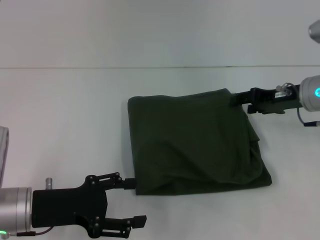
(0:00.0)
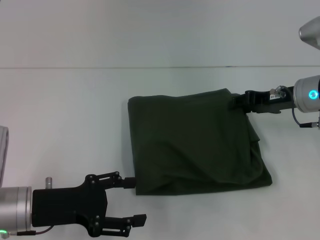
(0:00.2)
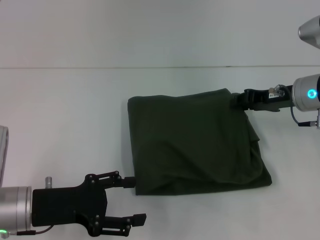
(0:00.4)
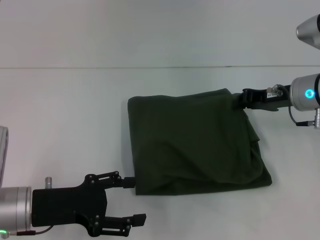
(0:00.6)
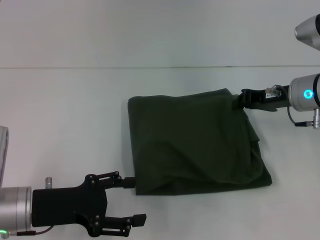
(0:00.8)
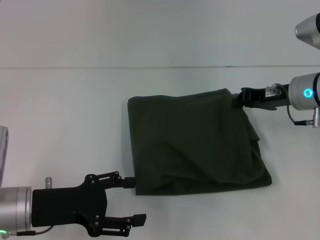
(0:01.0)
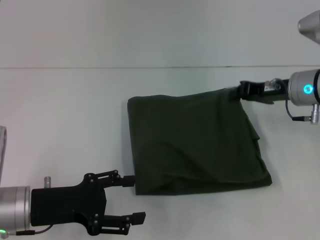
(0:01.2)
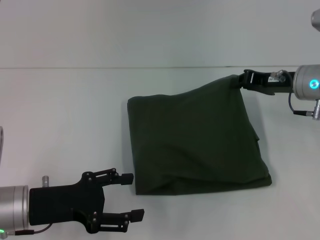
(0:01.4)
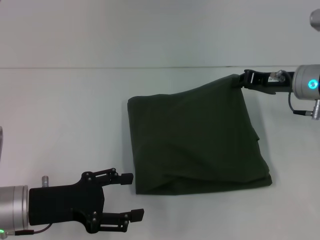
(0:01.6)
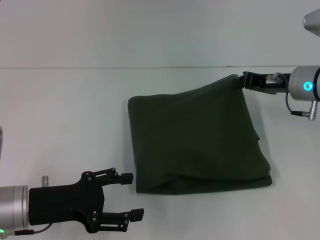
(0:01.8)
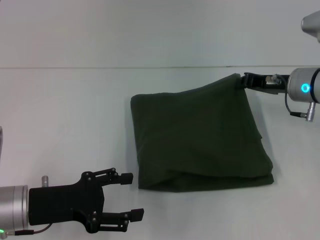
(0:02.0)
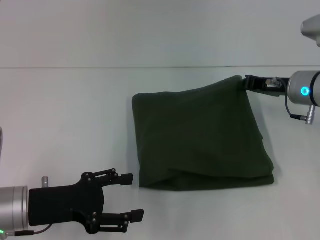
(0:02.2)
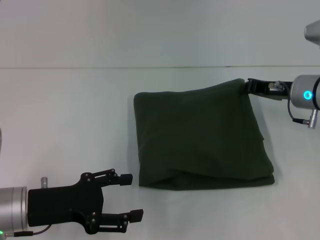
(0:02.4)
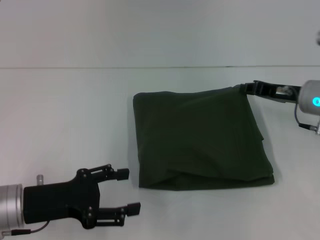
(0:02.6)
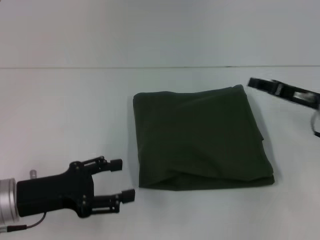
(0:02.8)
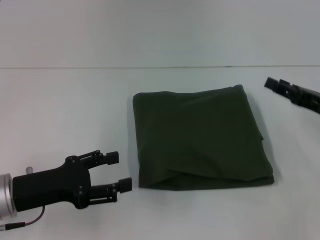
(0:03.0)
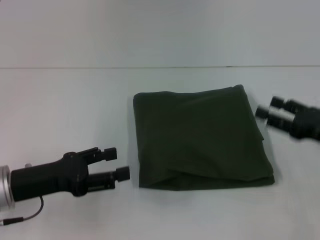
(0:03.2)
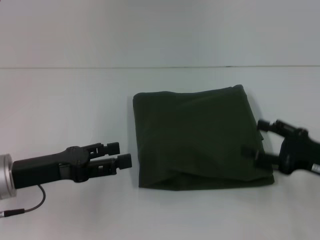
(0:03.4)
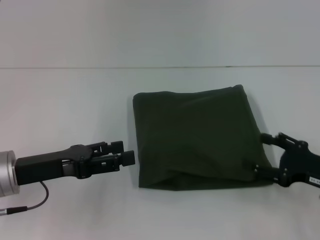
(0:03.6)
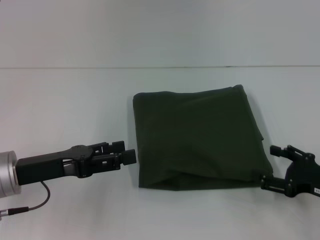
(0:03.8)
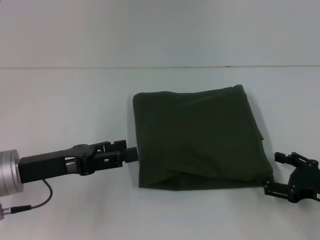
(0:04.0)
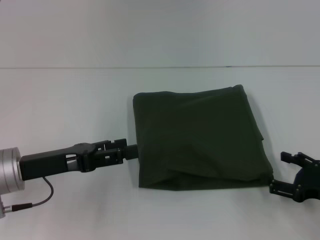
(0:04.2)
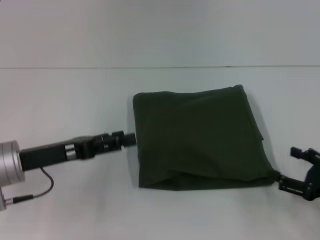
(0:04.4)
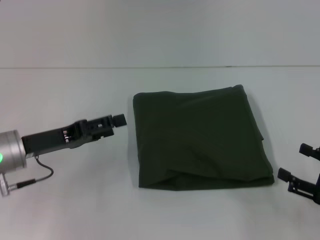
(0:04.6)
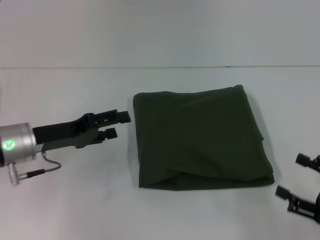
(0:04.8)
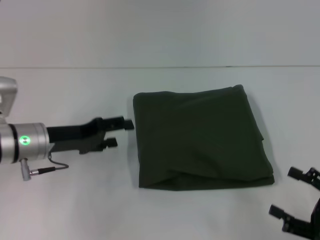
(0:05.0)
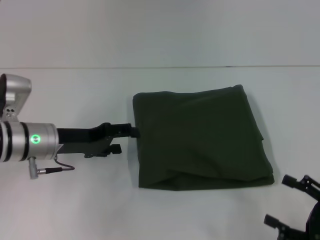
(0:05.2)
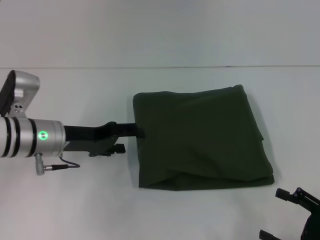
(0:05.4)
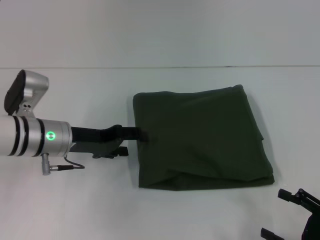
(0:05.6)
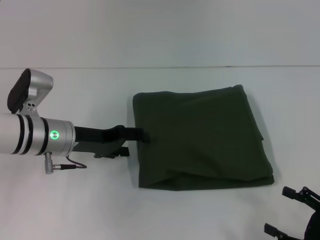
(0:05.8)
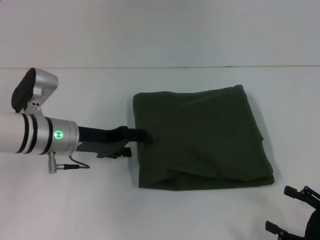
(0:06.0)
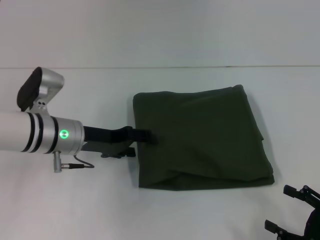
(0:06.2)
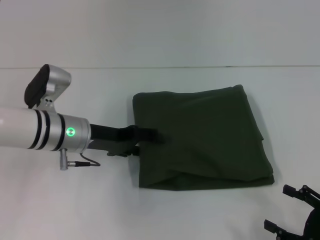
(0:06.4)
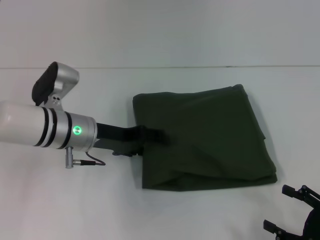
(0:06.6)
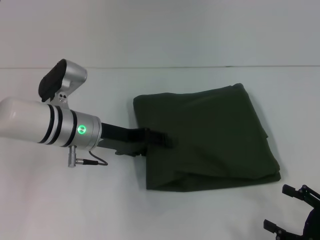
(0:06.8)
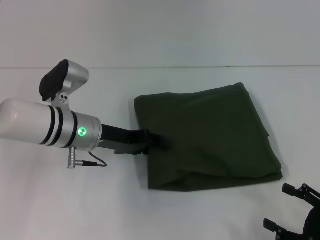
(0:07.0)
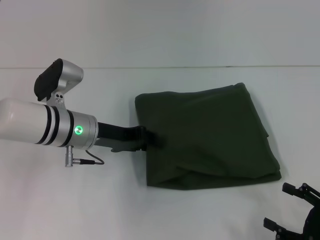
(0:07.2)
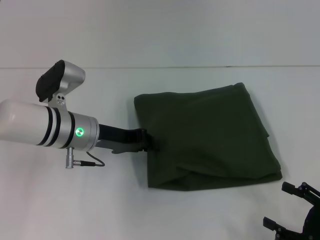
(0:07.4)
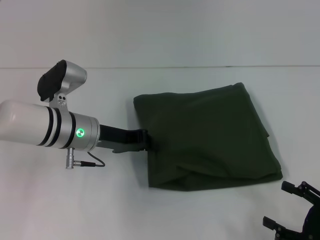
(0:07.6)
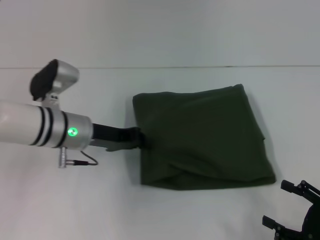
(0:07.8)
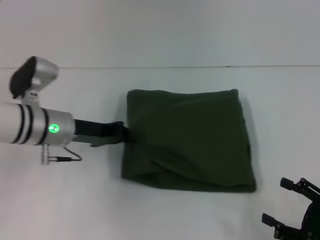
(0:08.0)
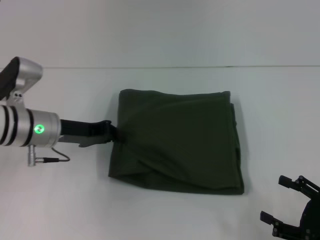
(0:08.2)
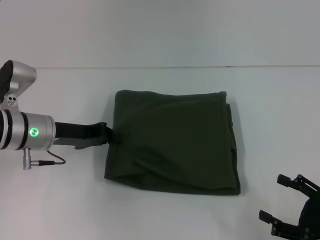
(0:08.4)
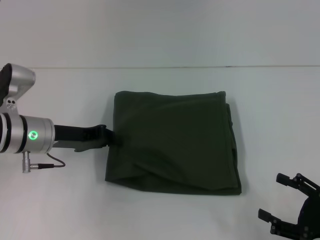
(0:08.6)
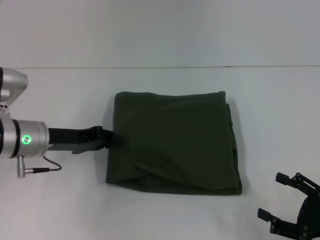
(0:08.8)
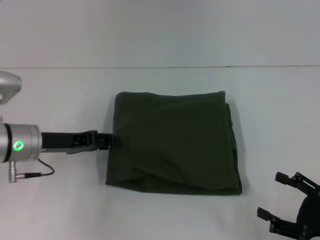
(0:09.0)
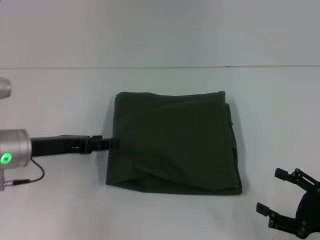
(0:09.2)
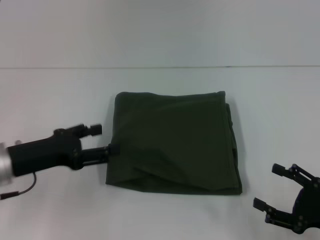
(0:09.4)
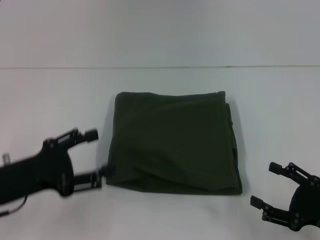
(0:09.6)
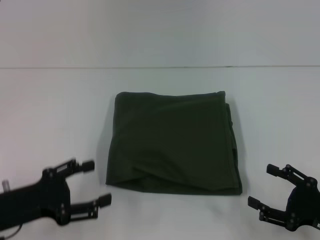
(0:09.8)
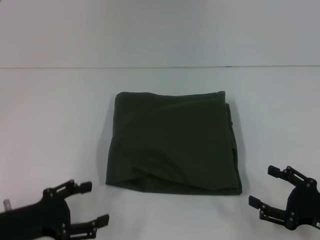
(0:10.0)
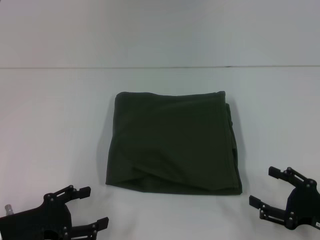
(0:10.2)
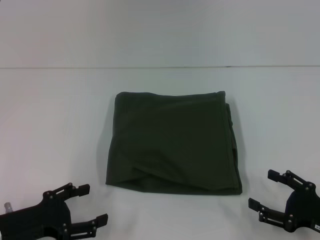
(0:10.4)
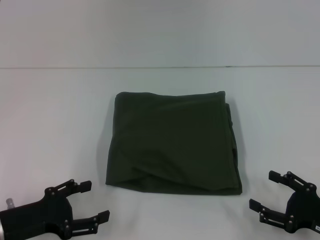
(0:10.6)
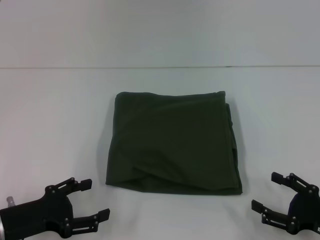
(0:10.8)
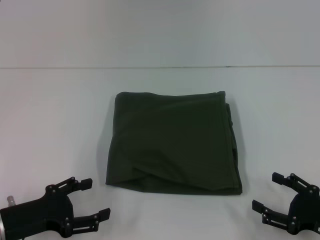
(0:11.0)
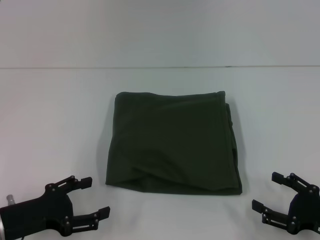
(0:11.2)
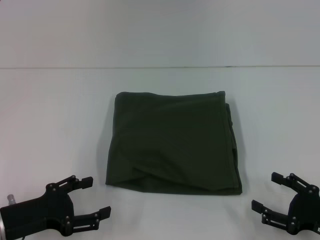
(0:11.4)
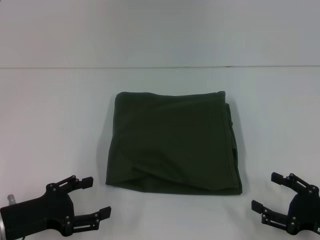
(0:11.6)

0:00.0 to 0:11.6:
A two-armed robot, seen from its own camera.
0:00.0 to 0:01.4: The right gripper closes its fingers.
0:01.4 to 0:02.8: The right gripper ends up some 5 cm from where it was.
0:02.8 to 0:04.4: The right gripper heads backward and downward, covering roughly 15 cm, and opens.
0:04.4 to 0:05.8: The left gripper is displaced forward by some 10 cm. Meanwhile the right gripper is displaced backward by roughly 5 cm.
0:05.8 to 0:07.2: The grippers make only small movements.
0:07.2 to 0:08.8: The left gripper is displaced to the left by about 5 cm, and closes its fingers.
0:08.8 to 0:10.2: The left gripper is displaced backward by roughly 15 cm, and opens its fingers.
0:10.2 to 0:11.6: The two grippers keep their place.

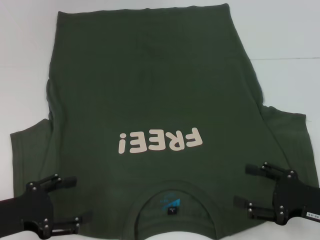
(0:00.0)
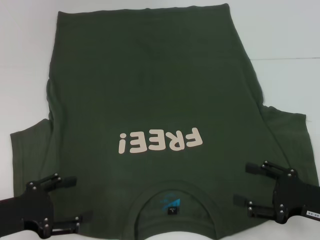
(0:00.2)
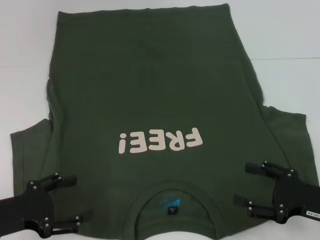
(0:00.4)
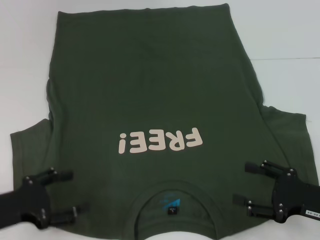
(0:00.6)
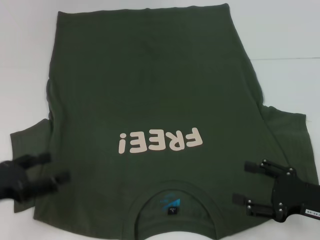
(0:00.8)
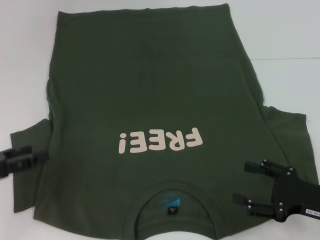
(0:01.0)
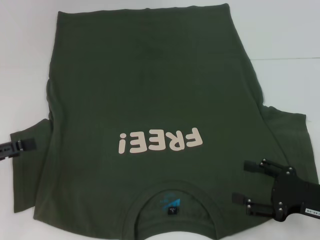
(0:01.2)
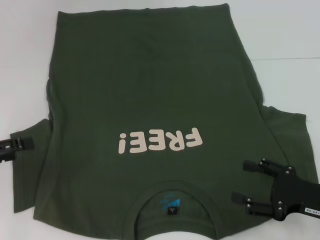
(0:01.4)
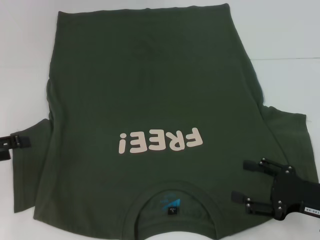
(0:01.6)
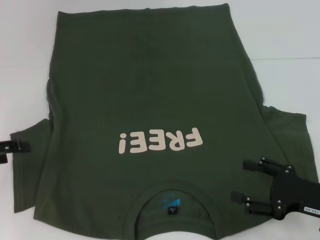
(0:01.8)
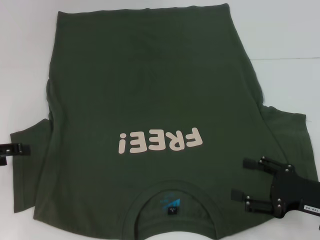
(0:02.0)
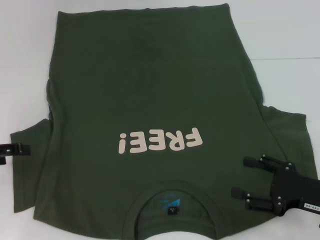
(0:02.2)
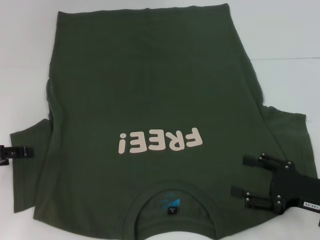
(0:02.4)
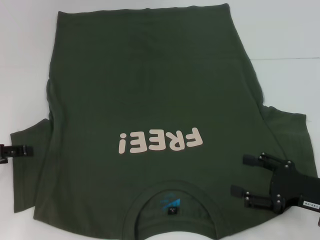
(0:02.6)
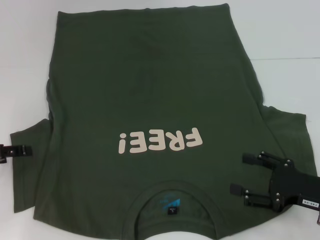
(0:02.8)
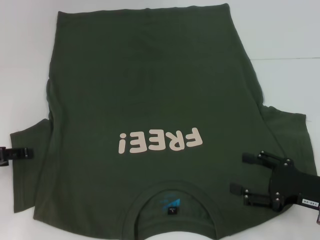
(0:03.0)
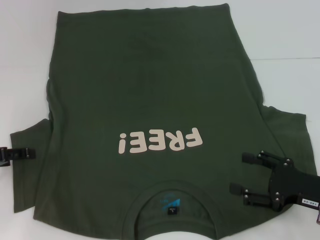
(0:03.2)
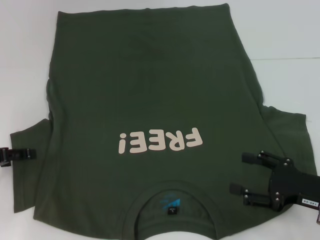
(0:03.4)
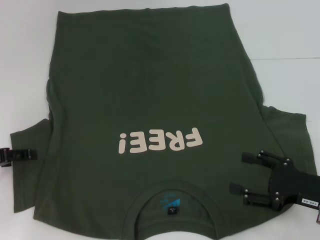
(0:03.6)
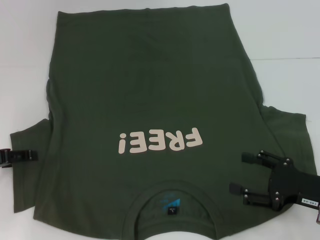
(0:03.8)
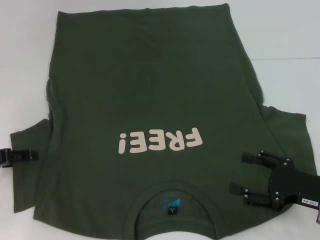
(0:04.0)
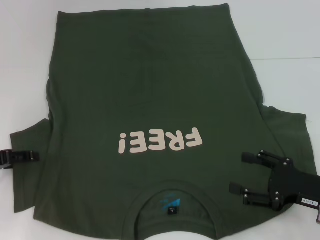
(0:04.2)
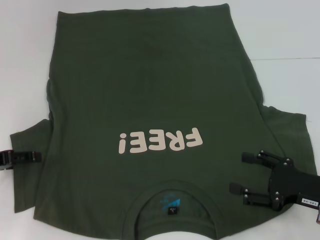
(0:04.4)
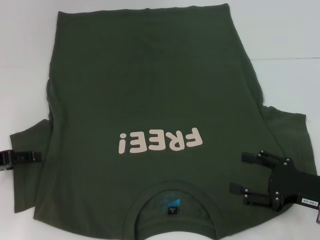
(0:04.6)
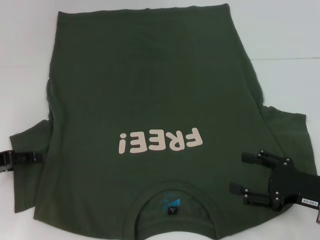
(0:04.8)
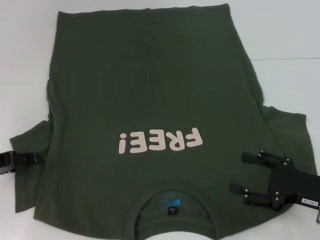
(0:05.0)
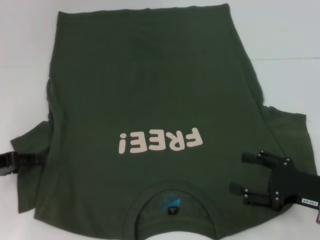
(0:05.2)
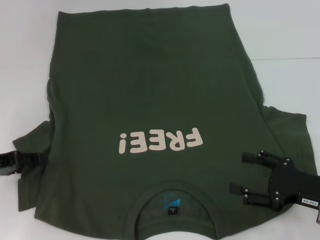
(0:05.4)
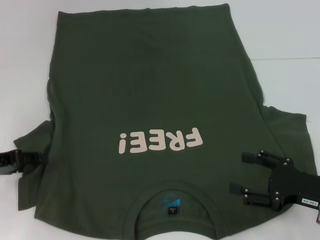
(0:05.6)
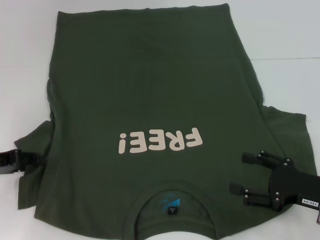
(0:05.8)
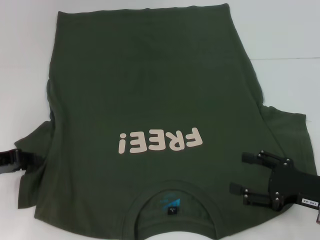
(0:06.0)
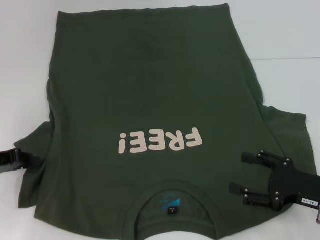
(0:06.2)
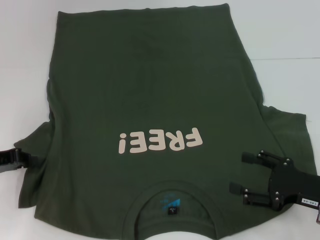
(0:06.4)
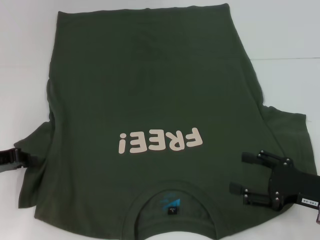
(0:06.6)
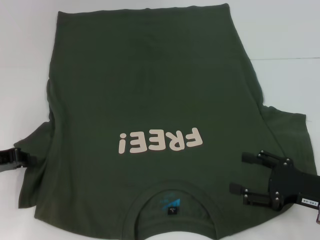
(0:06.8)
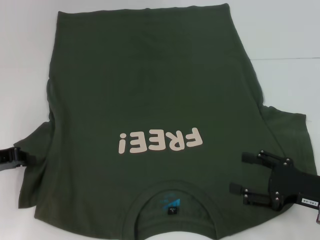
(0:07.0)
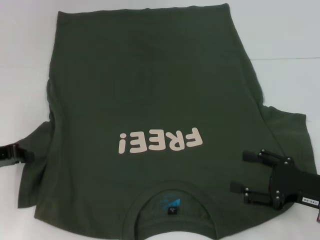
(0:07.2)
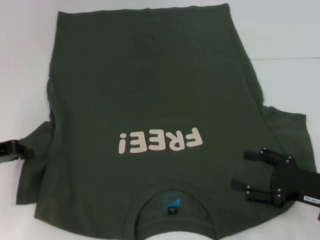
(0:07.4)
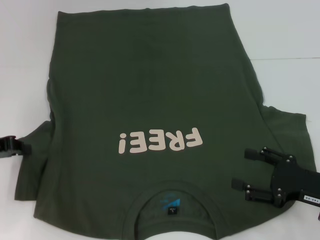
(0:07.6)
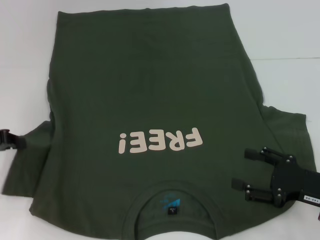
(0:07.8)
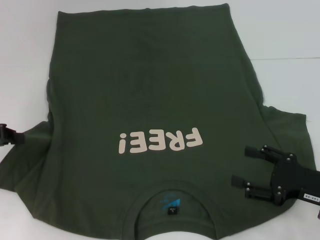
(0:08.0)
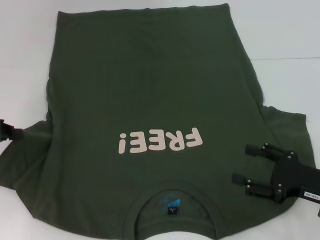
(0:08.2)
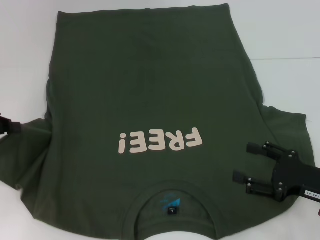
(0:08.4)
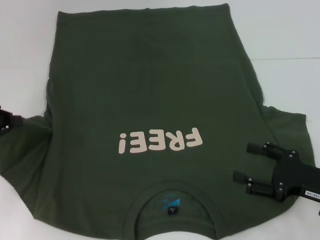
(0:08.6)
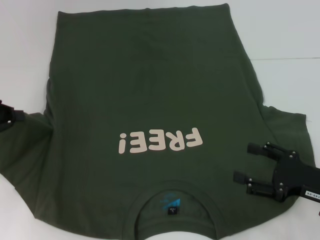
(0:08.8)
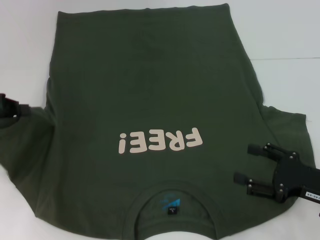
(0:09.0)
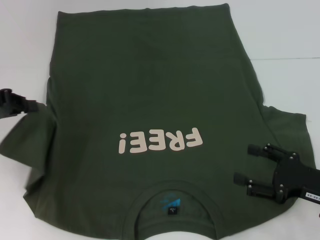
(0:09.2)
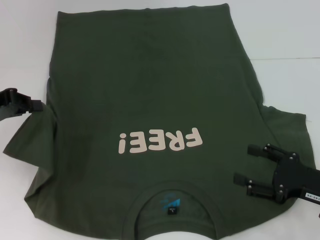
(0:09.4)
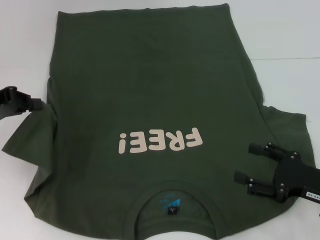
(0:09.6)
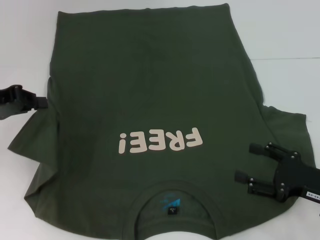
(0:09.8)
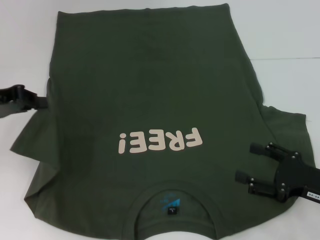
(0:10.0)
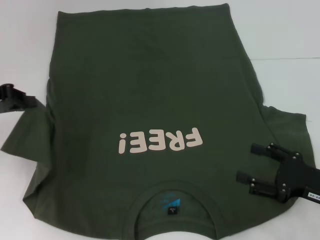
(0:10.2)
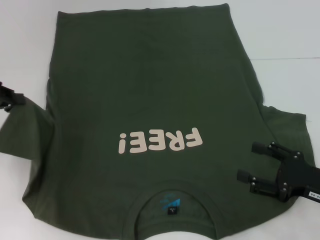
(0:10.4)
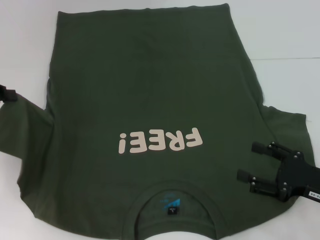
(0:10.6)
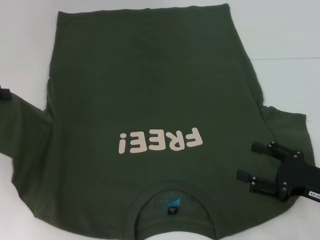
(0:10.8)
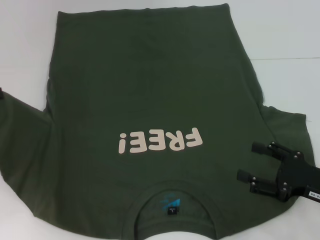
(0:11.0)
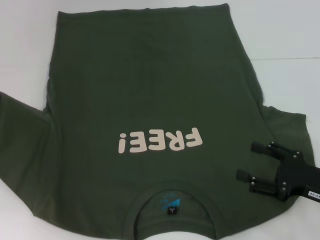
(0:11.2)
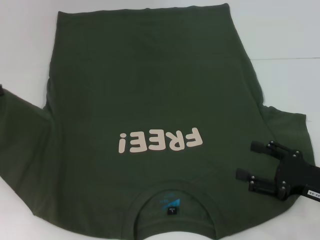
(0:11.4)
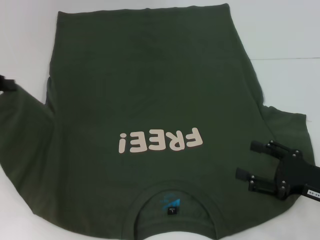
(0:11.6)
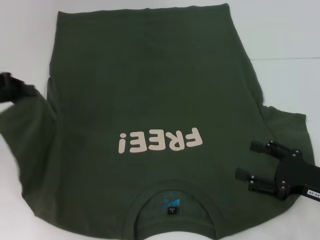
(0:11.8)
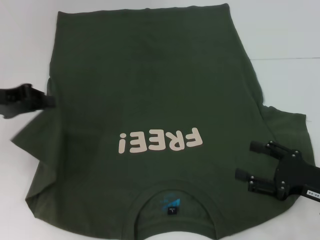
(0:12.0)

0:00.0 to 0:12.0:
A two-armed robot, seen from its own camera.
0:00.0 to 0:01.6: The left gripper moves to the left, forward and upward, approximately 10 cm.
0:01.6 to 0:03.0: The grippers move only a little.
0:03.0 to 0:04.4: Both grippers stay put.
0:04.4 to 0:06.0: There are only small adjustments of the grippers.
0:06.0 to 0:07.6: The left gripper closes up.
0:07.6 to 0:09.0: The left gripper shifts roughly 5 cm upward.
0:09.0 to 0:12.0: There are only small adjustments of the grippers.
